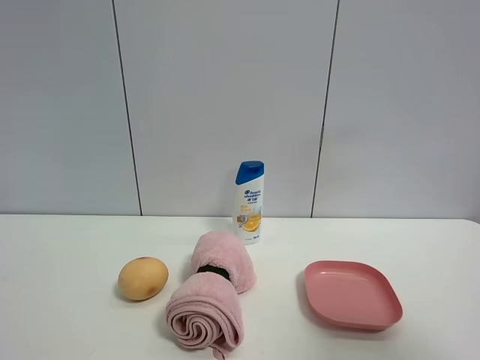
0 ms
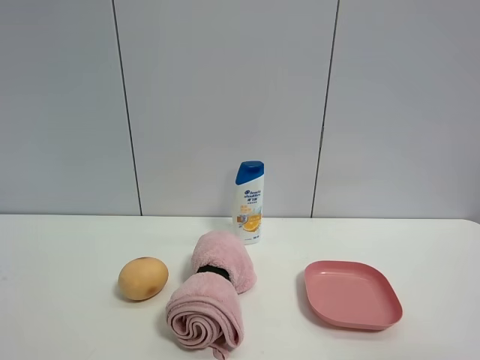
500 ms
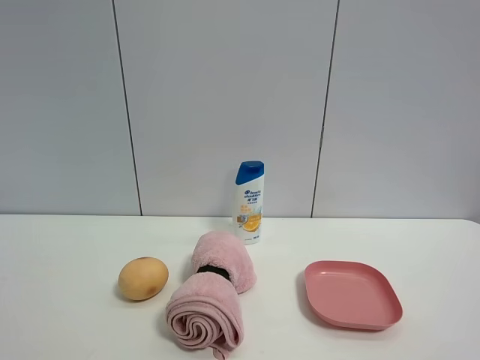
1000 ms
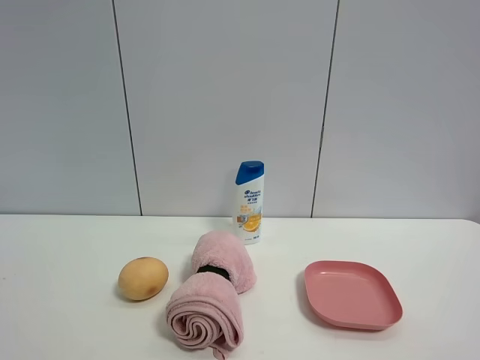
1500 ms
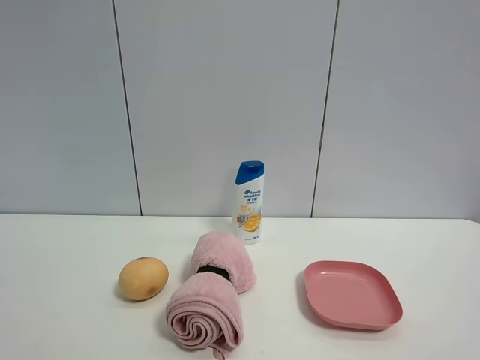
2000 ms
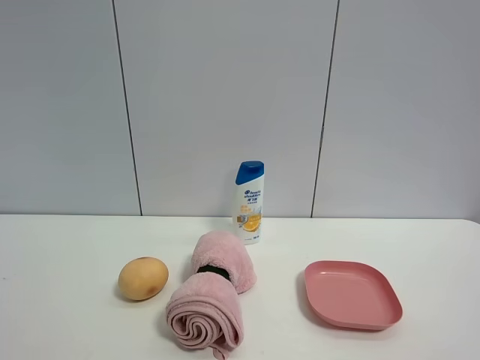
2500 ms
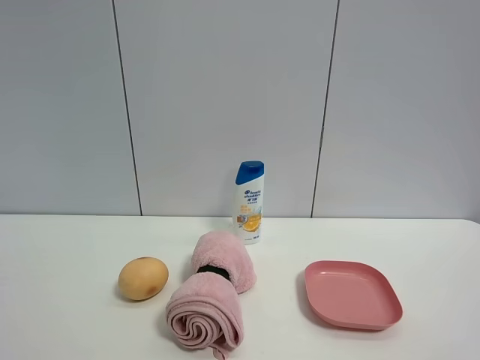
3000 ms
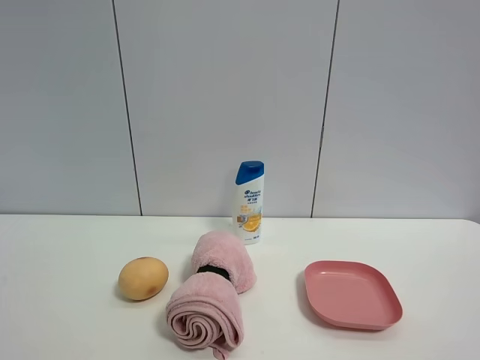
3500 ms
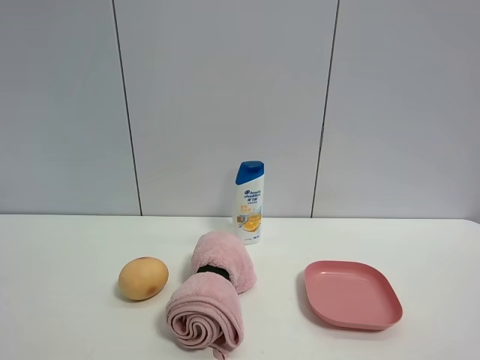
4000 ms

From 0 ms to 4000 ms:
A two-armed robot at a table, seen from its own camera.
Task of the whole recording: the gripper move the object.
From 0 ms to 2000 ms: The right gripper travels downward and backward by roughly 10 cm.
From 2000 ms to 4000 ms: Both grippers stay about where they are.

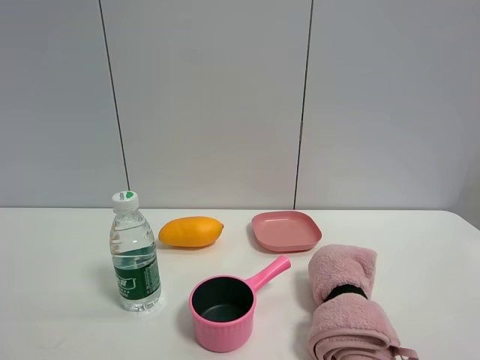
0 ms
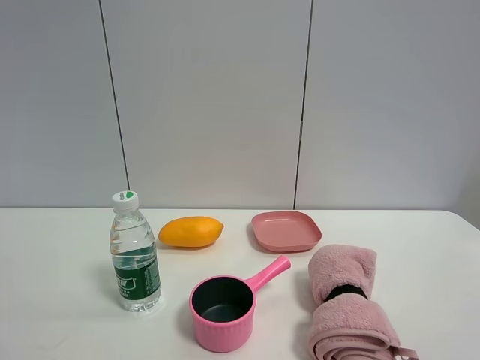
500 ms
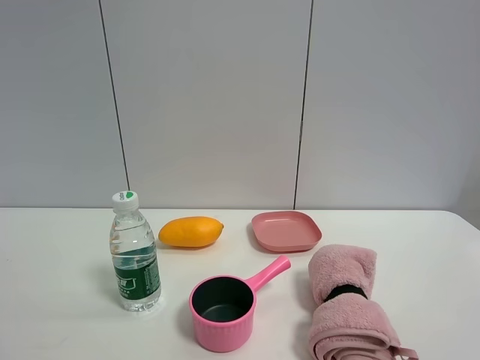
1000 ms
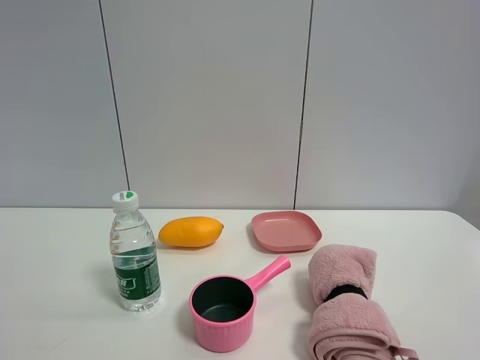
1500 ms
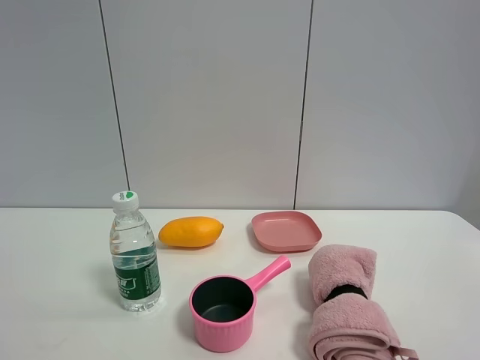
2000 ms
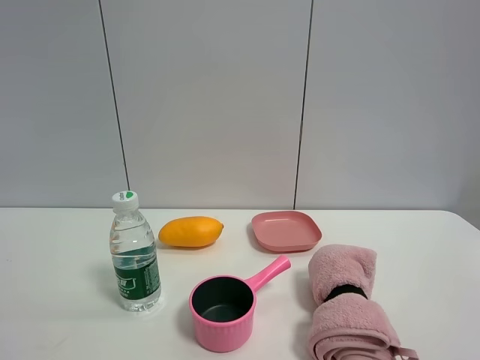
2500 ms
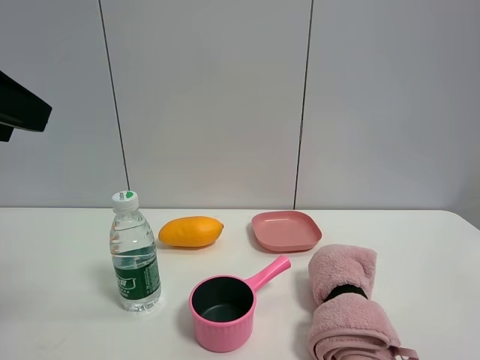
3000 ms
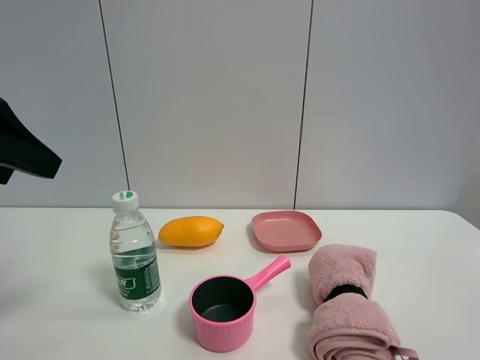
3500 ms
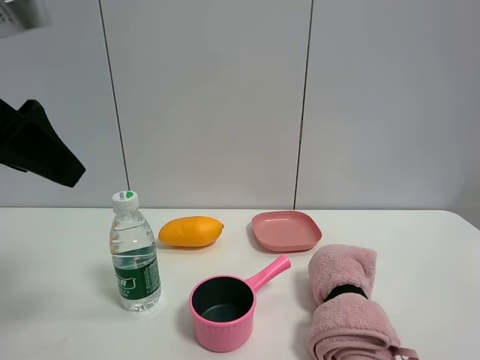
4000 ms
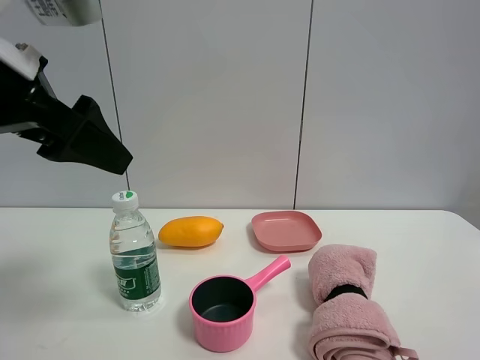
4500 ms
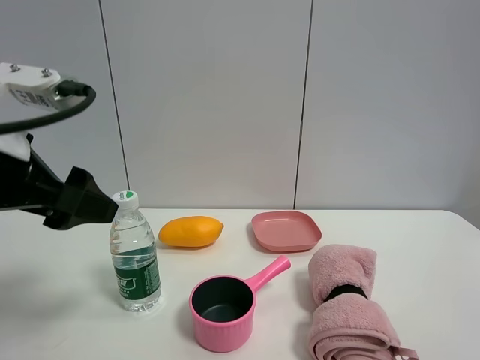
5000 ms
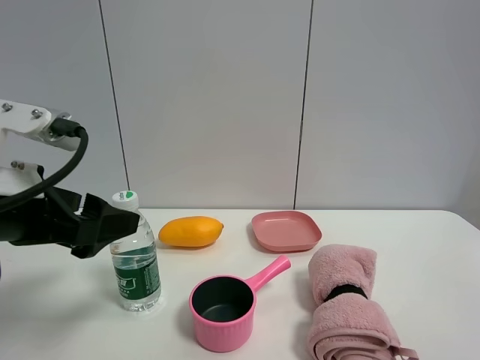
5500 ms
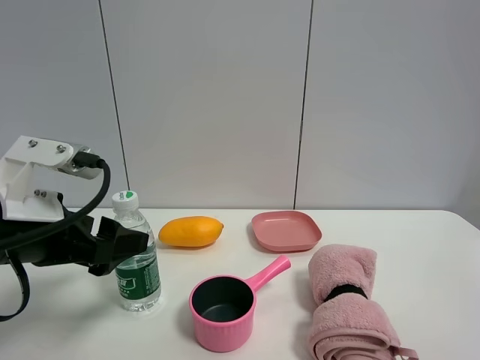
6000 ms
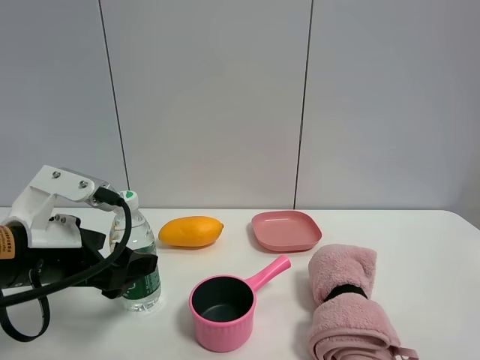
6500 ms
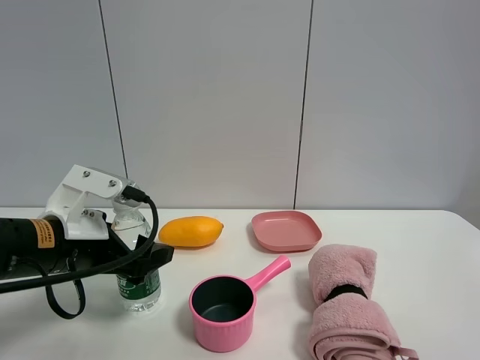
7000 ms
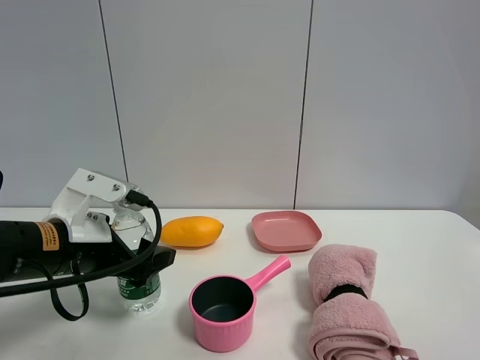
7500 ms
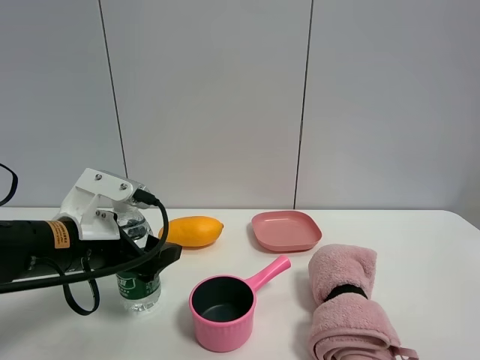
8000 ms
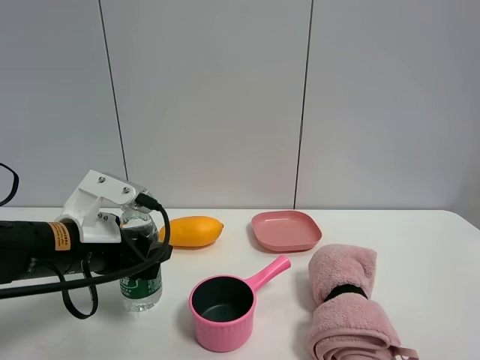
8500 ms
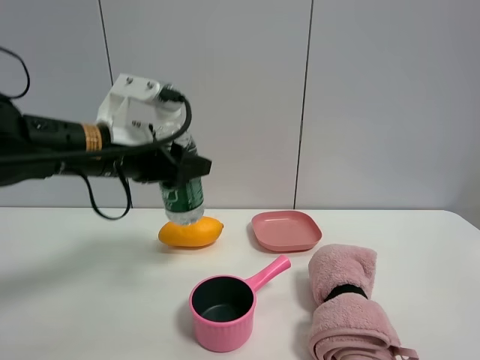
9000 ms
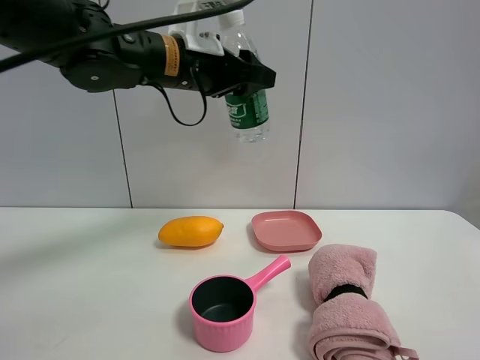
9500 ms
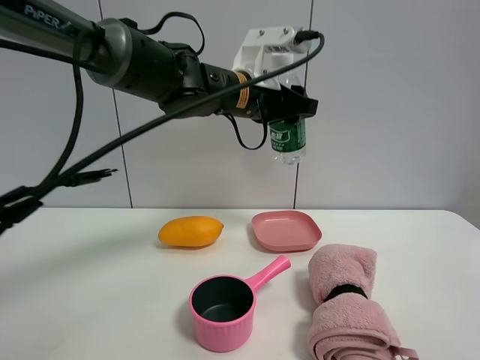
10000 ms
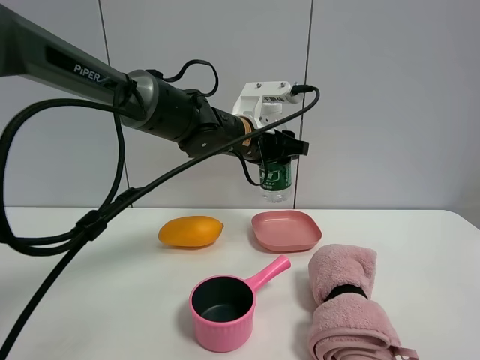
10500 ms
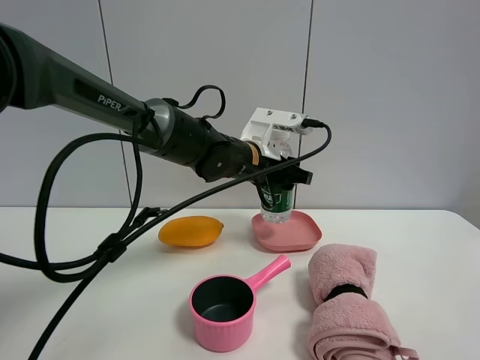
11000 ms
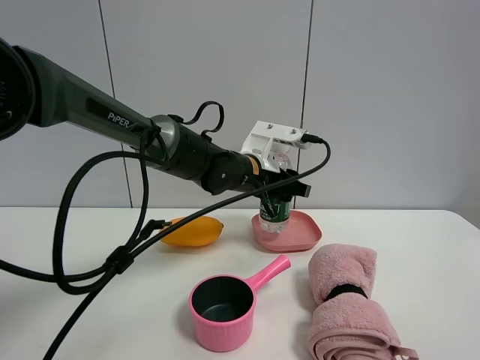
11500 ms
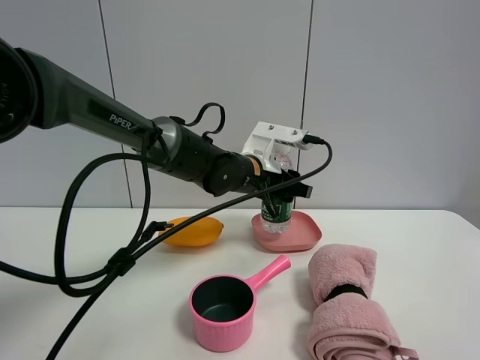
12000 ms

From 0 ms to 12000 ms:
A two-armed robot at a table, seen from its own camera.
Task of the whole recording: the gripper move the object.
Step, from 0 ms to 8000 ms: Grasp the YiBao mineral water with the left gripper.
From 2000 ms to 4000 ms: The left gripper travels forward by approximately 20 cm.
From 4000 ms to 6000 ms: The left gripper heads downward, covering about 15 cm.
From 6000 ms to 8000 ms: The left gripper is displaced forward and downward by some 10 cm.
From 8000 ms to 10000 ms: The left gripper moves to the right, forward and upward, some 30 cm, and closes up.
From 10000 ms to 12000 ms: The left gripper is displaced downward by roughly 10 cm.

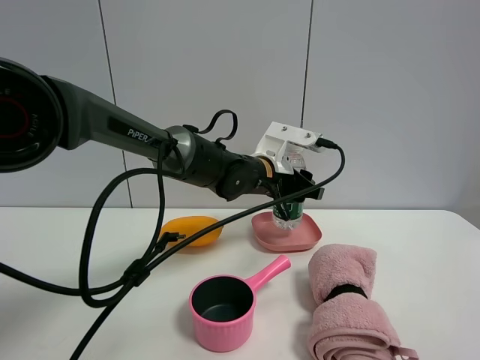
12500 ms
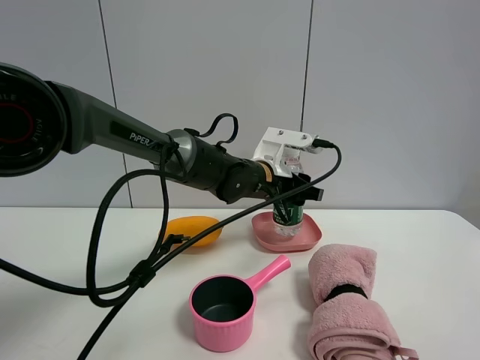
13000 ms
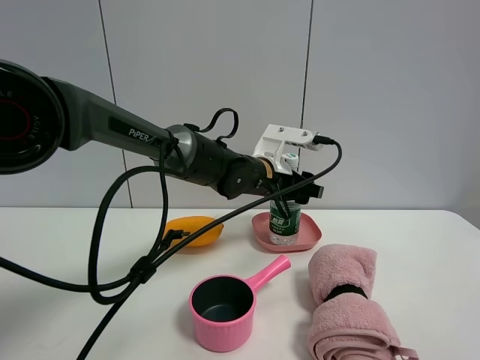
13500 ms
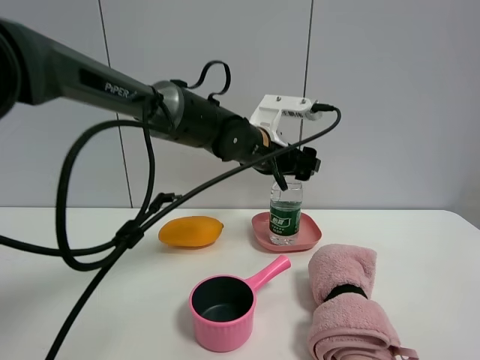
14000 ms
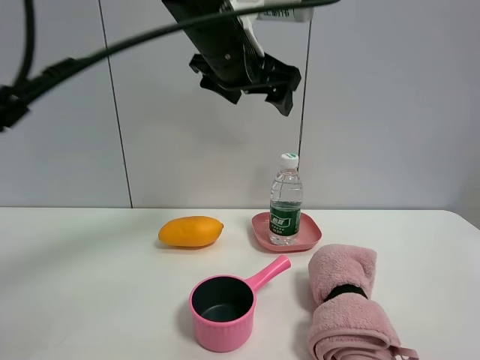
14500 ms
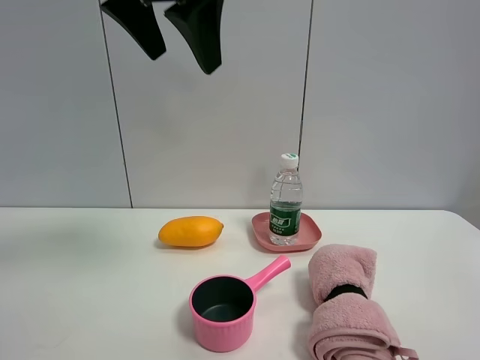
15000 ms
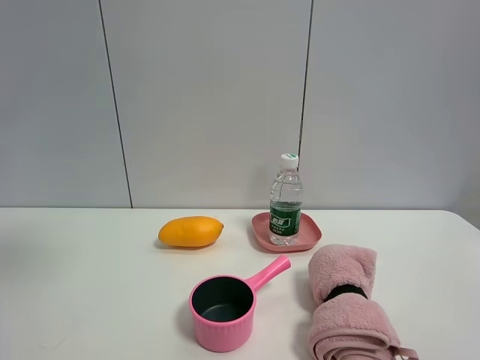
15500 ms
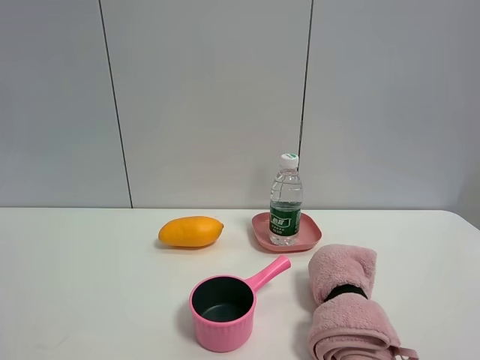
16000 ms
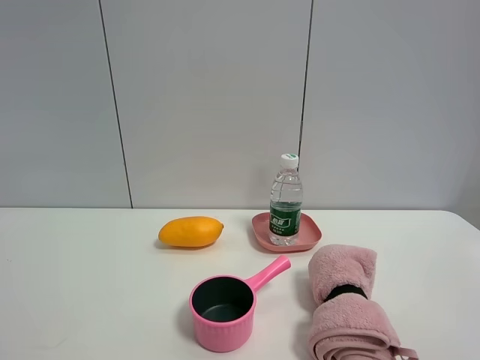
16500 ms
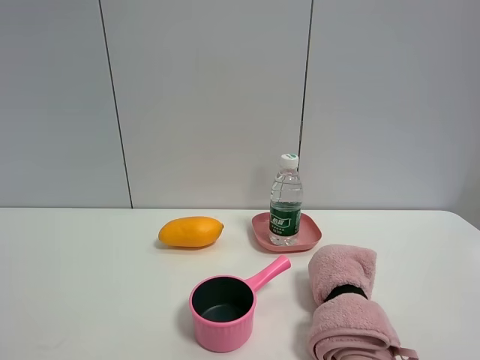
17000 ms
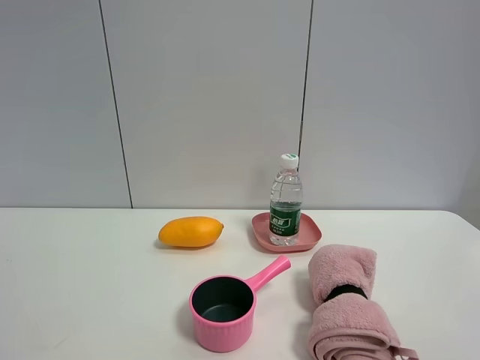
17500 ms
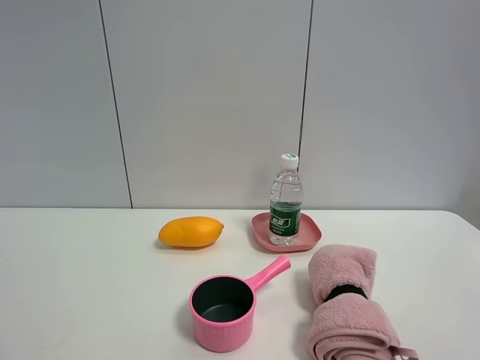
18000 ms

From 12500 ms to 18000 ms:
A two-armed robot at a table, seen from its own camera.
Task of the whole recording: the gripper move the object.
From 12500 ms to 14500 ms: The left gripper travels upward by some 20 cm, and opens its fingers.
From 14500 ms to 16000 ms: The left gripper goes about 35 cm to the left and backward.

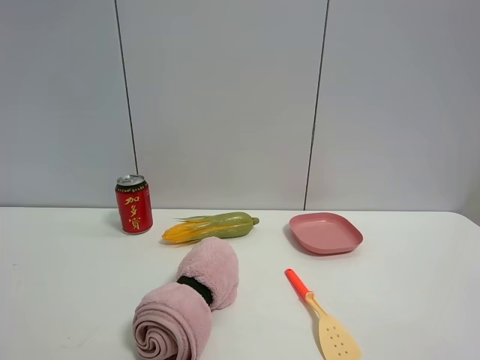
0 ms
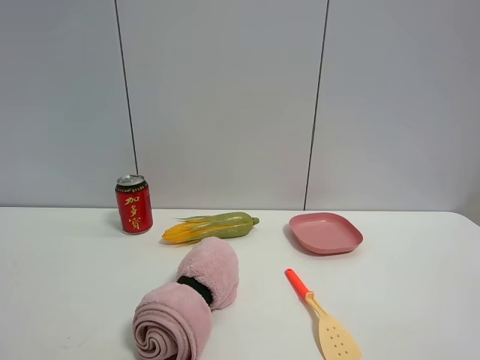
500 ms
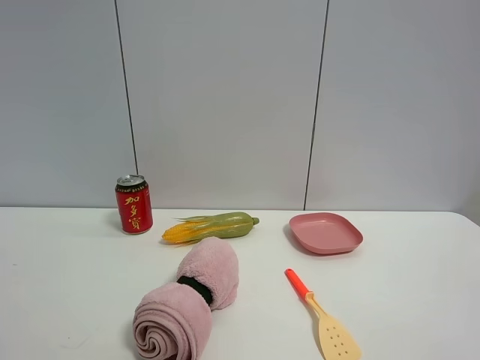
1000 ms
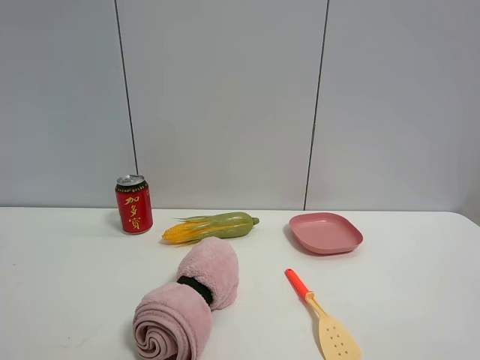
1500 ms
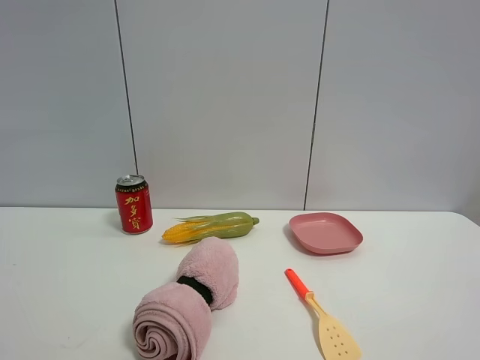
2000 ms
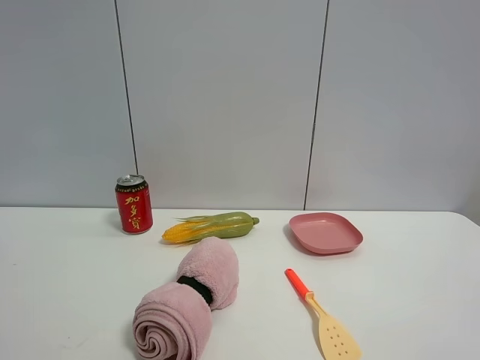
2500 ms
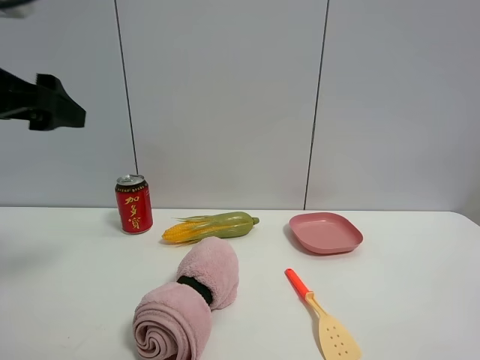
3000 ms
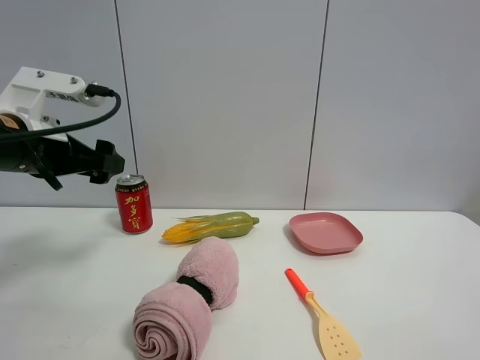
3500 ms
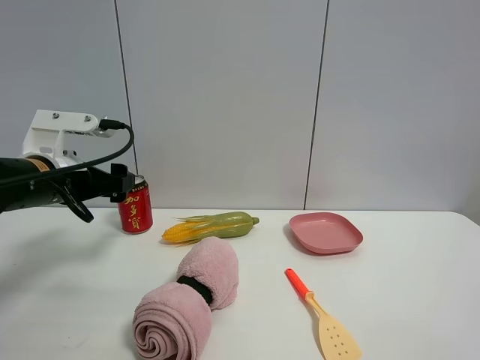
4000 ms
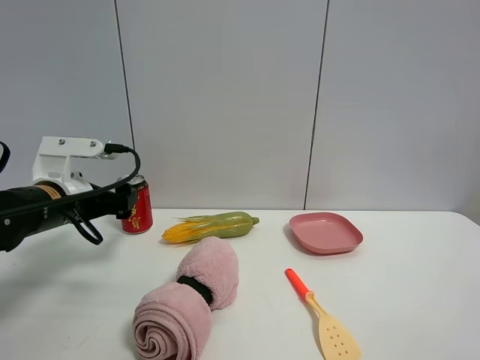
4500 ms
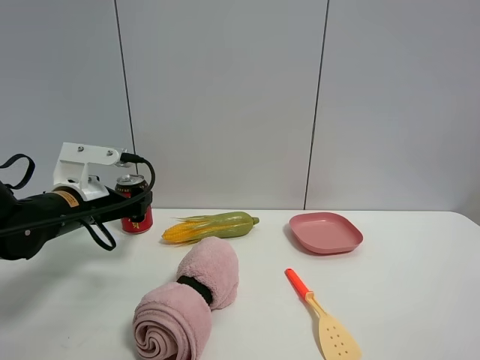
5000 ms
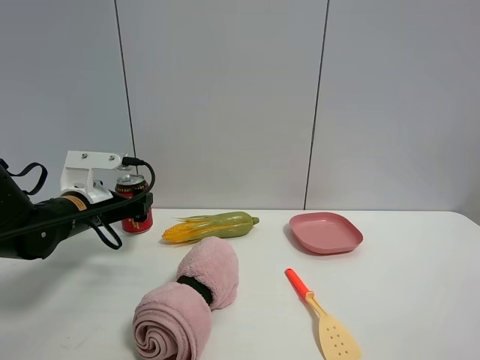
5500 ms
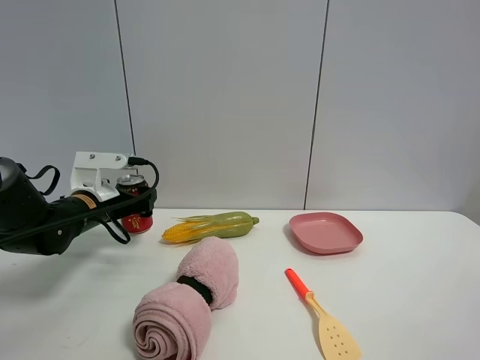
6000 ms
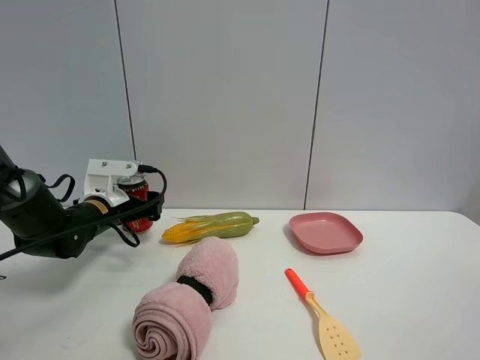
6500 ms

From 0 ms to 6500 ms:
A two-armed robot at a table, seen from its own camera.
Task of the whole recording: the gripper move the object.
From 2000 ms to 4500 ms: The left gripper goes some 35 cm forward and downward.
From 4500 ms to 6500 ms: The left gripper moves forward and downward, roughly 10 cm.
